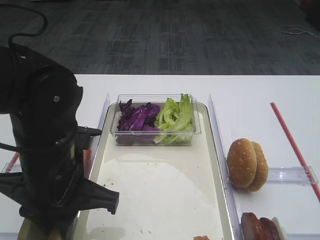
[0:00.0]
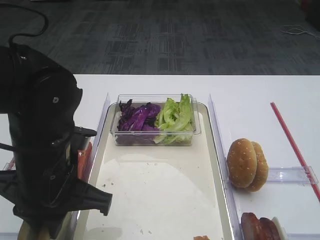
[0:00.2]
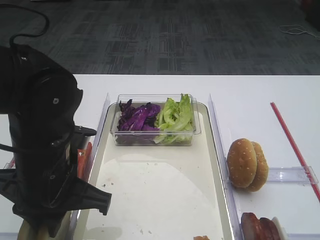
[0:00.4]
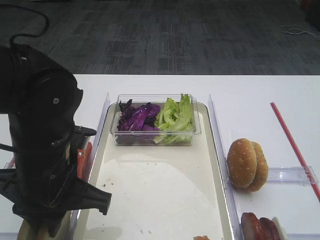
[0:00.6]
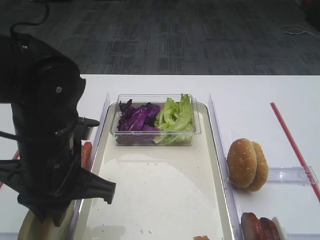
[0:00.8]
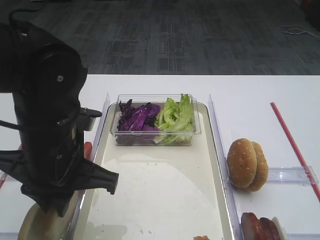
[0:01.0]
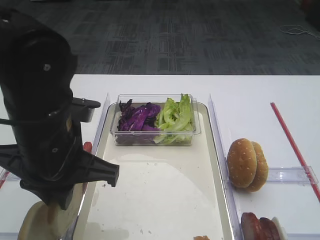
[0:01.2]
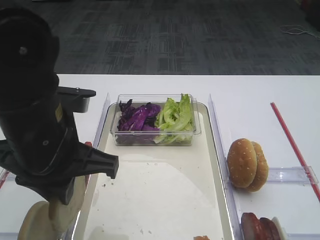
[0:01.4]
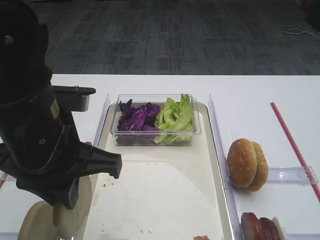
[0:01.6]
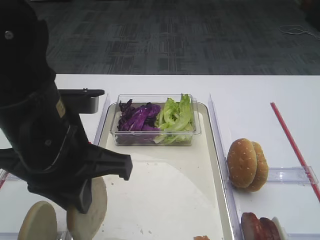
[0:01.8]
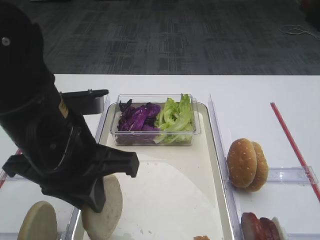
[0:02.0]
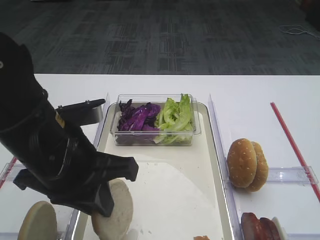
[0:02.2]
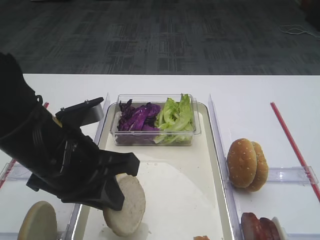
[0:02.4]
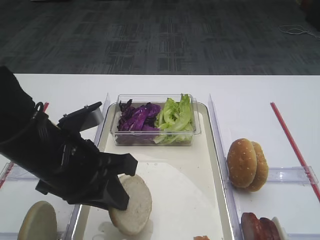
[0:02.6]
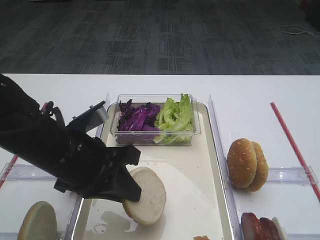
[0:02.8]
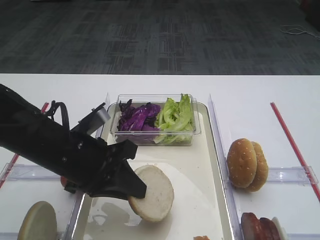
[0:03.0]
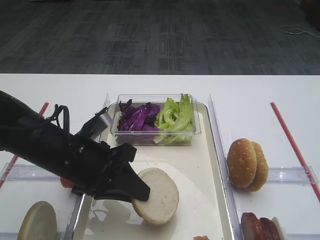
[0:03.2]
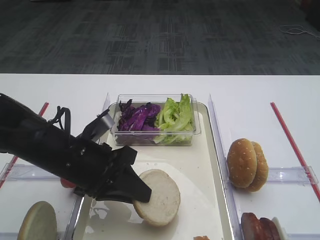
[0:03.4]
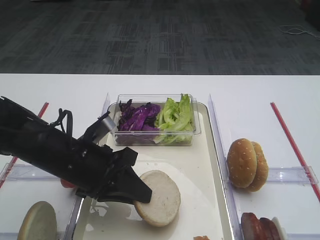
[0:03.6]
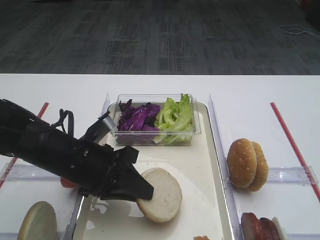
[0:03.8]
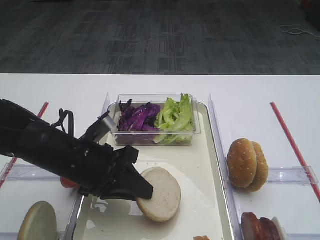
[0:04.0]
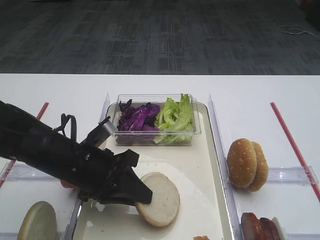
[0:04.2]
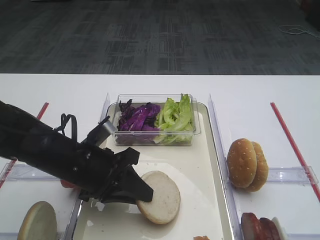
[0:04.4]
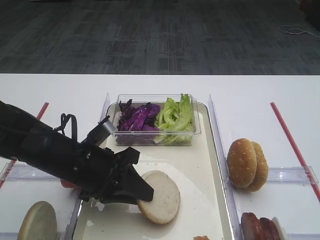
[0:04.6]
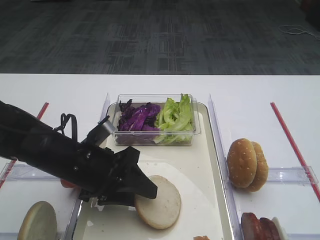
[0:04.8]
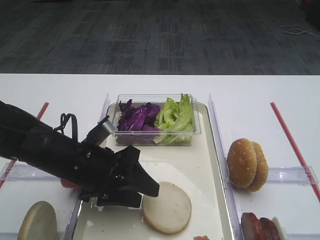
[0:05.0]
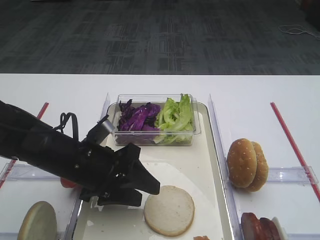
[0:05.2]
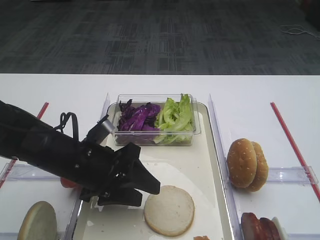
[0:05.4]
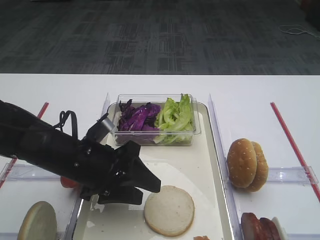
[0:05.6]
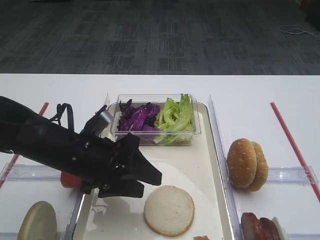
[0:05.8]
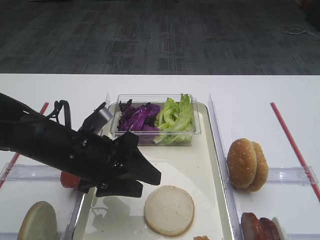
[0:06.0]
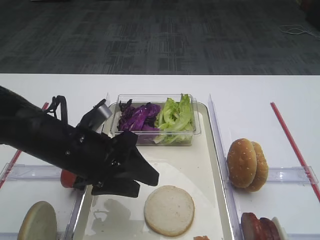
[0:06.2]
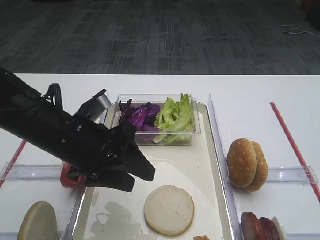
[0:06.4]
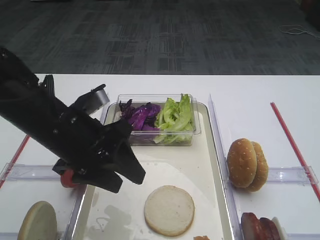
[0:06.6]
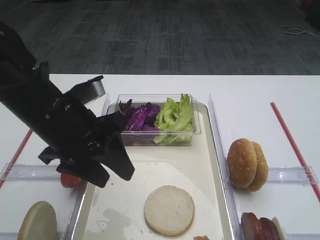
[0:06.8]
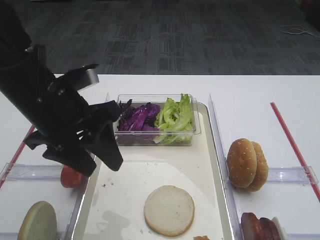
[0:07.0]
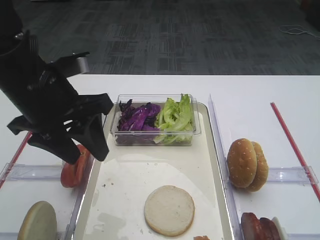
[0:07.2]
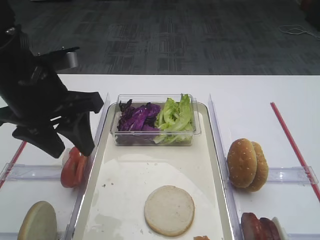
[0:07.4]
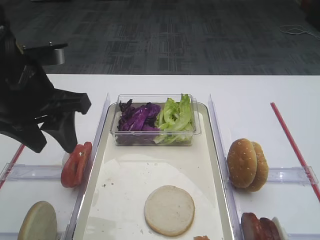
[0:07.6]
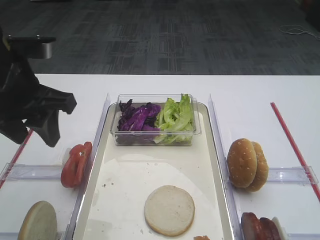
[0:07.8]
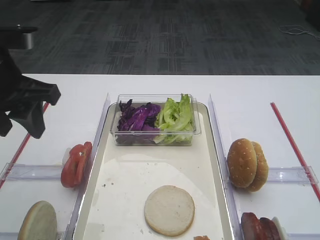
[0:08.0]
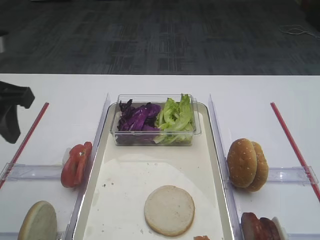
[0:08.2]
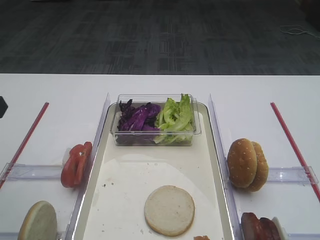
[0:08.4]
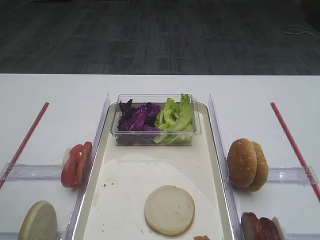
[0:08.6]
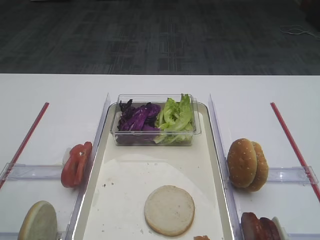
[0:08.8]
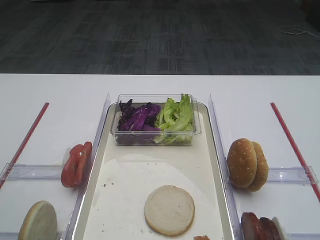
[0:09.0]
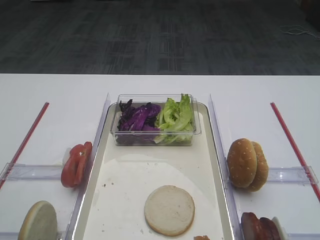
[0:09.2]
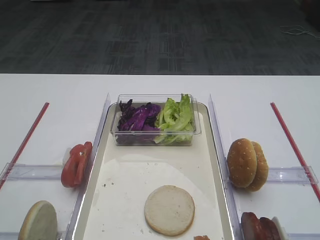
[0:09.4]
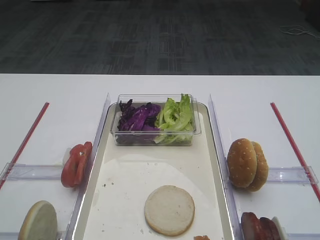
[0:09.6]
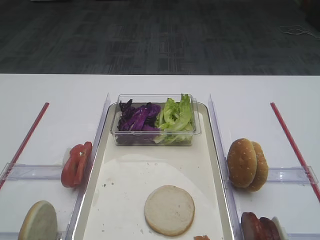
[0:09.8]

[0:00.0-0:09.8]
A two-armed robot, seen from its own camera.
Step, 0:01.6 to 0:06.2: Place the bread slice on the tray with the left gripper.
0:00.0 to 0:01.4: The left gripper goes approximately 5 cm upward.
0:01.4 to 0:02.8: The left gripper goes some 10 cm downward.
0:02.8 to 0:04.2: The left gripper goes some 5 cm downward.
0:04.2 to 0:05.6: The left gripper opens up.
0:05.6 to 0:07.0: The left gripper travels upward by roughly 10 cm.
0:07.0 to 0:08.4: The left gripper is displaced to the left by about 15 cm.

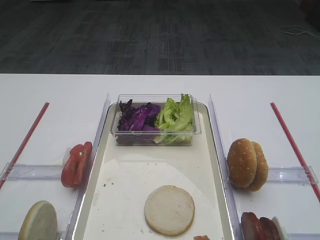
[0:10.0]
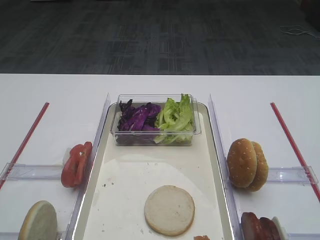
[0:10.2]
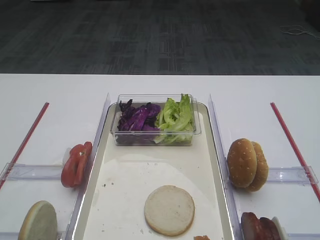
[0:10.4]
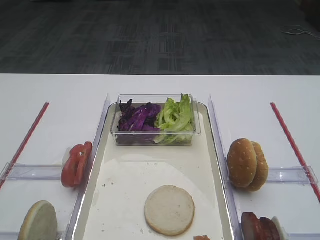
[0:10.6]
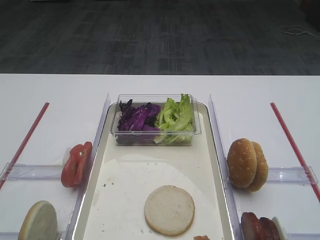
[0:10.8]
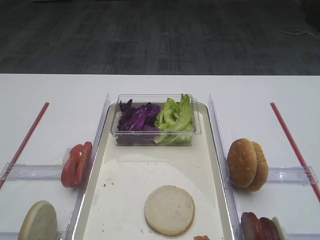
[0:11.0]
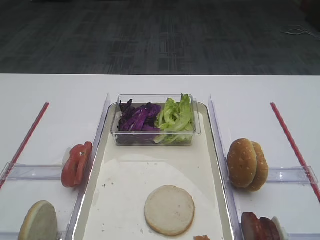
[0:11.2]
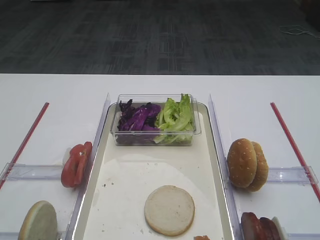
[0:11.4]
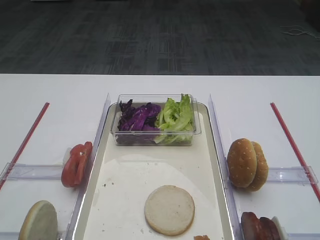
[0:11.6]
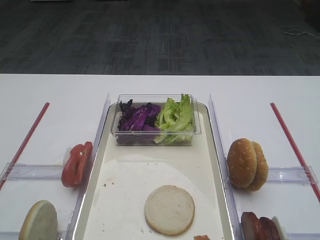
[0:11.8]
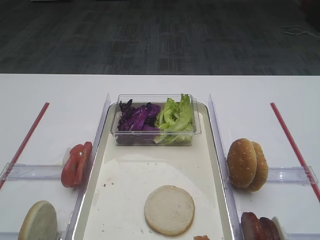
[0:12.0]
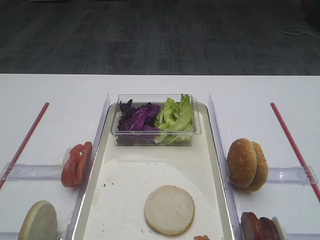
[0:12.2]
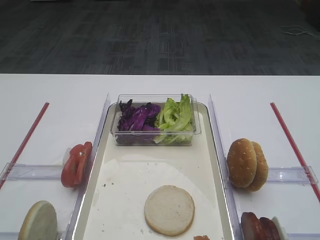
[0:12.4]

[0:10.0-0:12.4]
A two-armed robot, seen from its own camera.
0:11.2 to 0:12.4: Neither gripper changes place.
